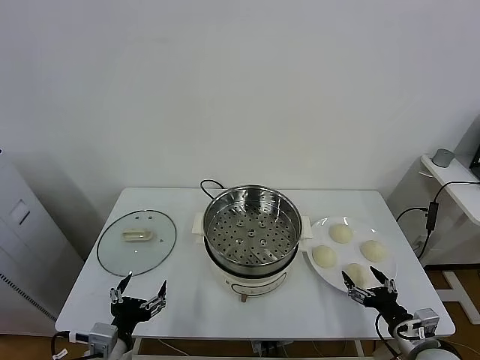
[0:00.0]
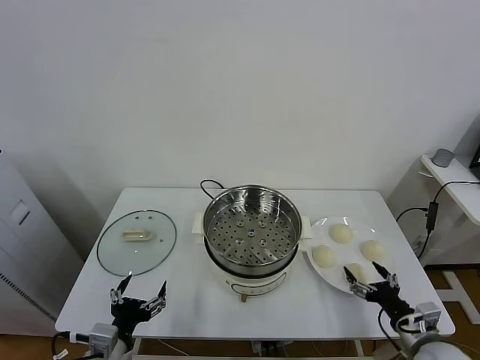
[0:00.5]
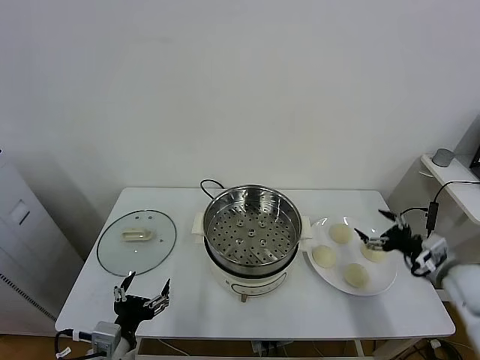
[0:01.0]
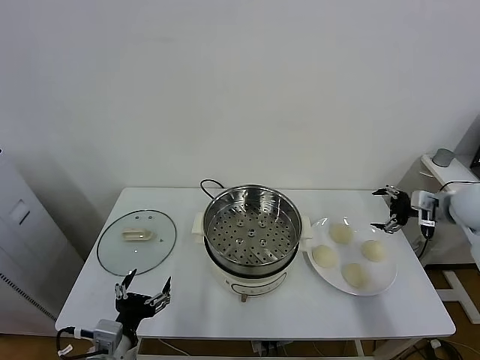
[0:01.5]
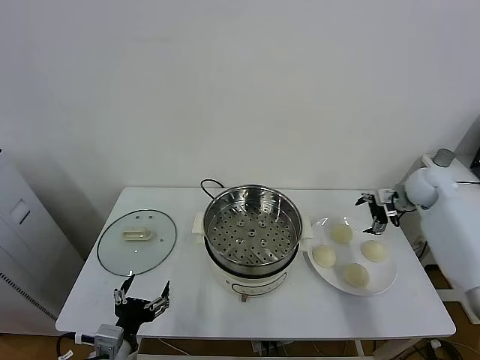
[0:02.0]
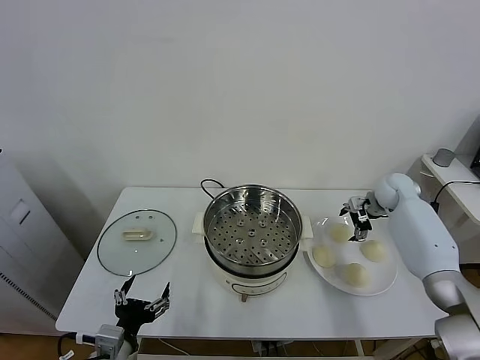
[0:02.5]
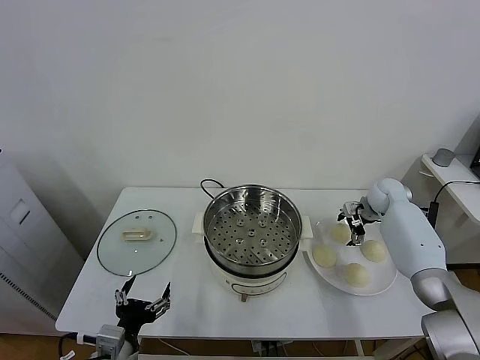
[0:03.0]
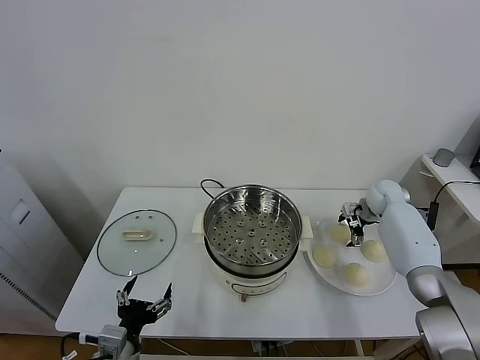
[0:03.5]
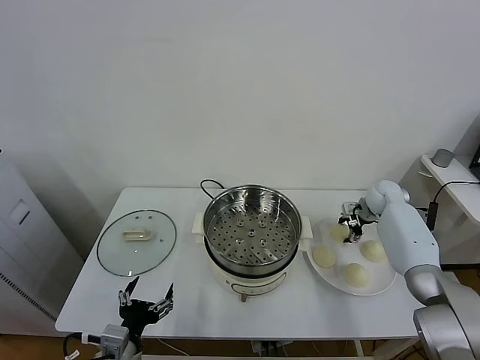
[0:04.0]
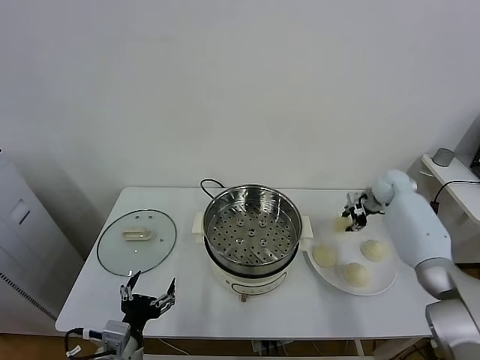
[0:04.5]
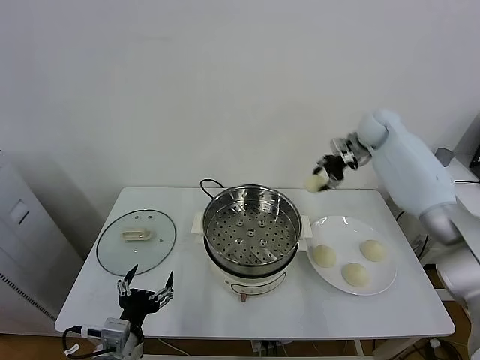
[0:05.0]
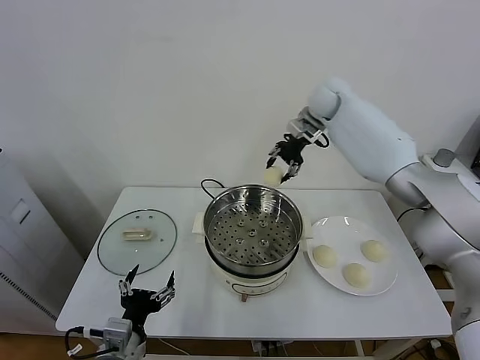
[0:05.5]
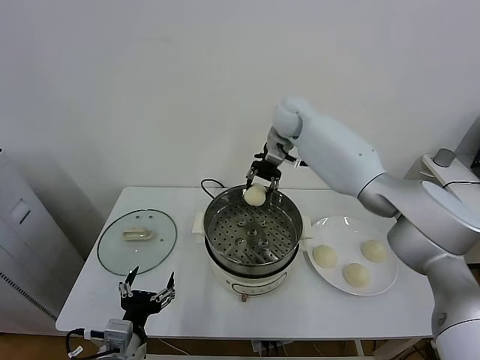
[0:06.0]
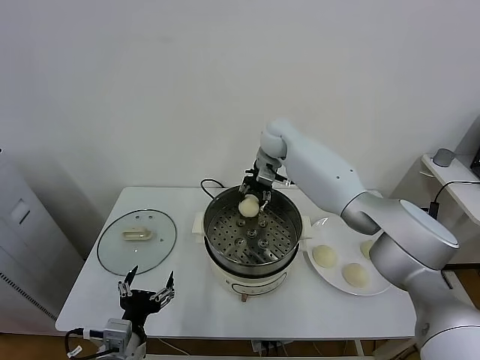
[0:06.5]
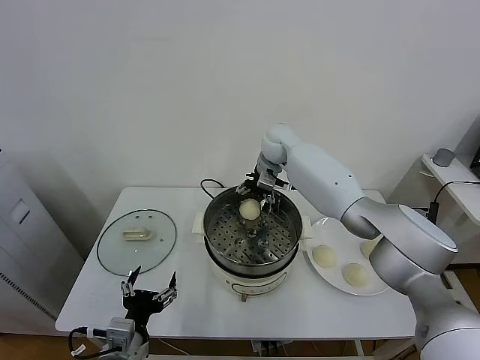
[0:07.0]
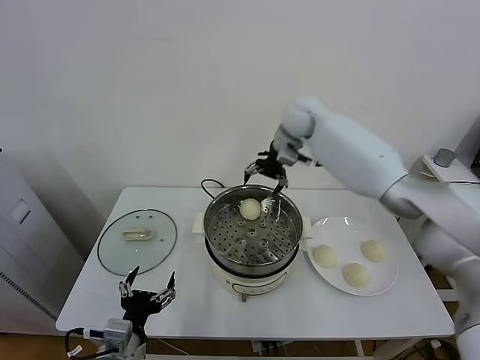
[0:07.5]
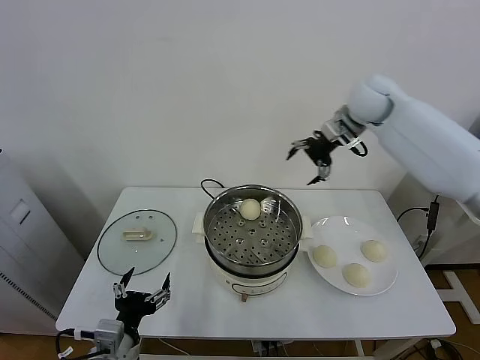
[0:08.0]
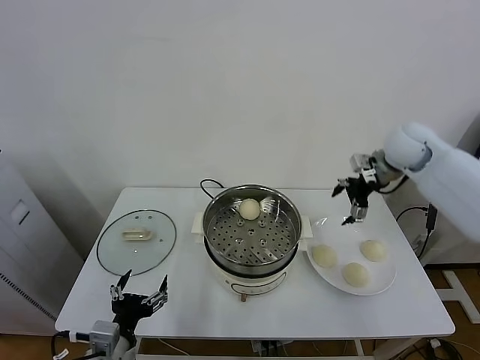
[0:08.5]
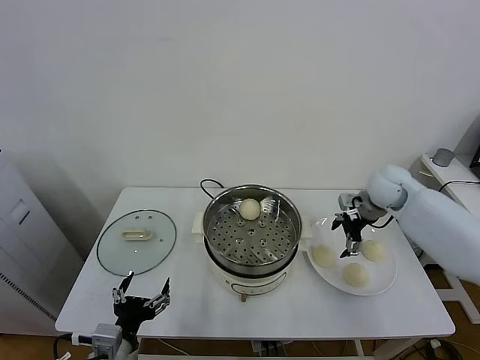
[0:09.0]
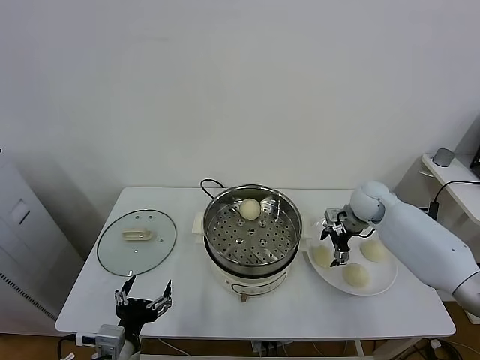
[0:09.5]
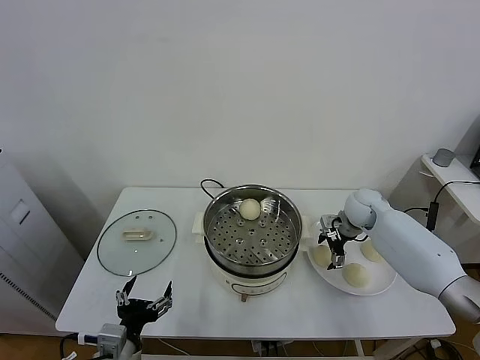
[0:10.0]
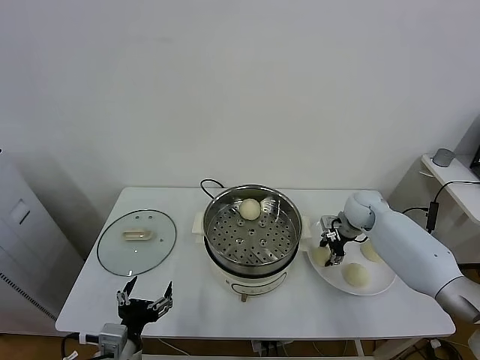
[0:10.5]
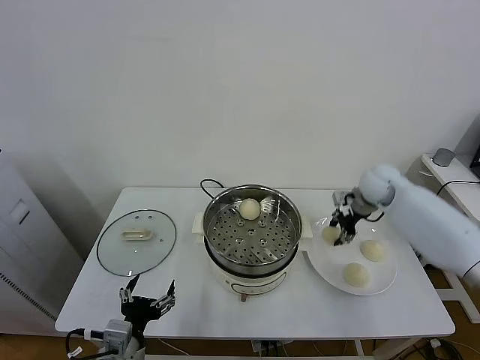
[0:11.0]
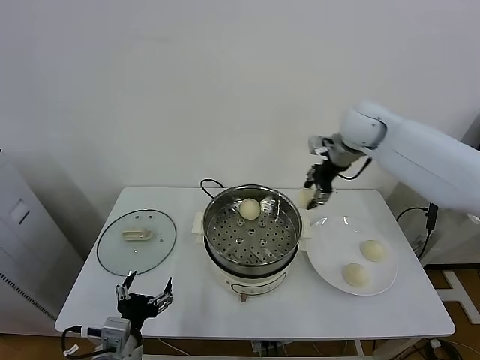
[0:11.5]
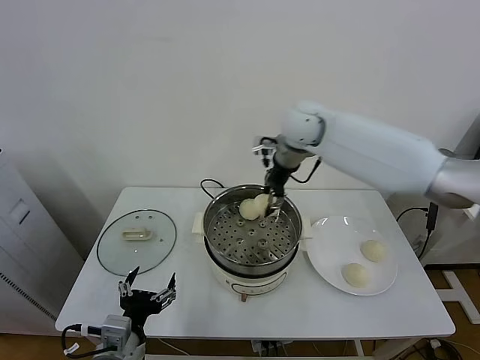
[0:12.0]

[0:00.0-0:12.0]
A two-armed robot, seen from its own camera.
Task of the whole recording: take steamed baozi put them in steamer.
Step, 0:00.0 to 0:04.0: Grasp the baozi in the plate with right gripper.
Step, 0:04.5 to 0:07.0: Place the baozi on the steamer with right gripper.
Step, 0:07.5 to 0:10.5: Grasp the baozi in the plate with right gripper.
0:02.0 to 0:04.0: The right gripper is displaced downward by about 10 cm, and closes its fingers.
0:04.0 to 0:06.0: The right gripper moves to the left and upward, approximately 35 cm.
0:06.0 to 0:08.0: The right gripper is displaced to the right and upward by approximately 20 cm, and opens.
0:08.0 to 0:10.0: The right gripper travels downward by some 30 cm.
0:10.0 to 0:12.0: The right gripper shifts roughly 30 cm upward and to the left, and closes up.

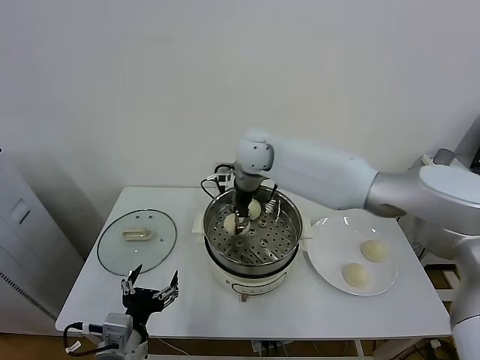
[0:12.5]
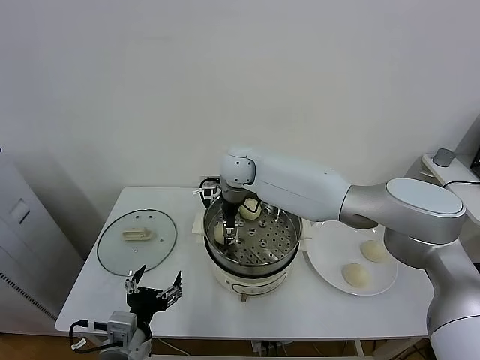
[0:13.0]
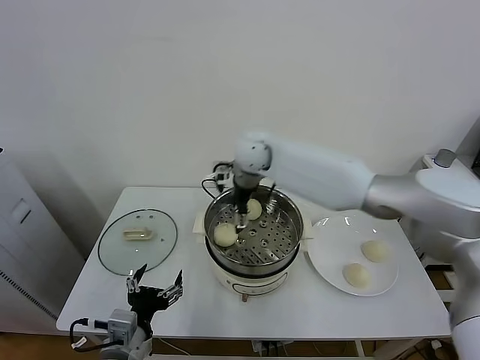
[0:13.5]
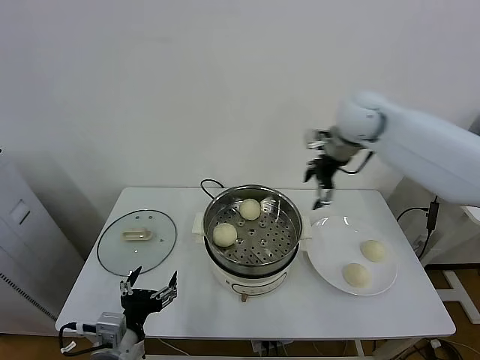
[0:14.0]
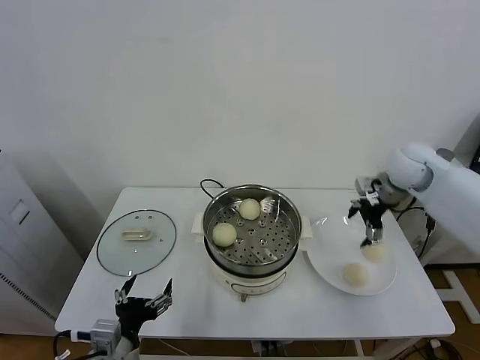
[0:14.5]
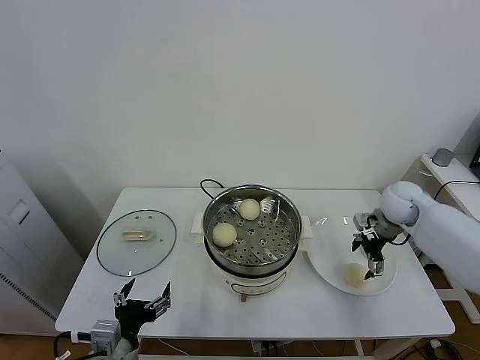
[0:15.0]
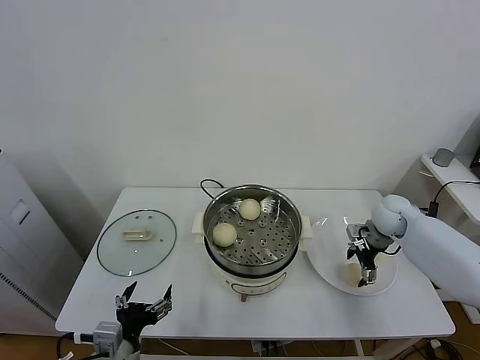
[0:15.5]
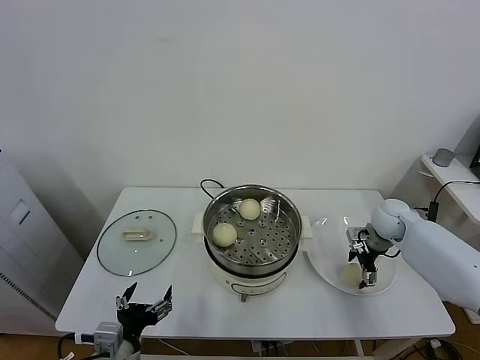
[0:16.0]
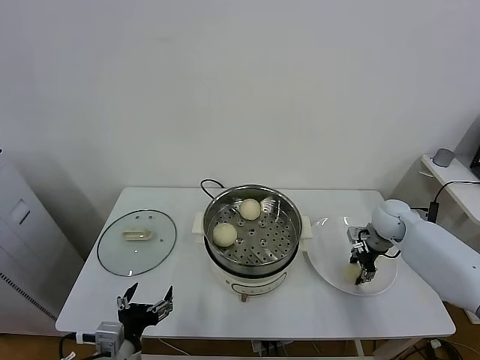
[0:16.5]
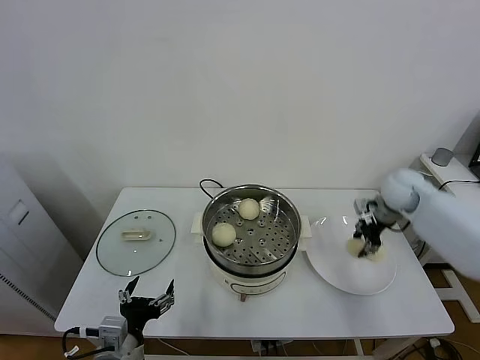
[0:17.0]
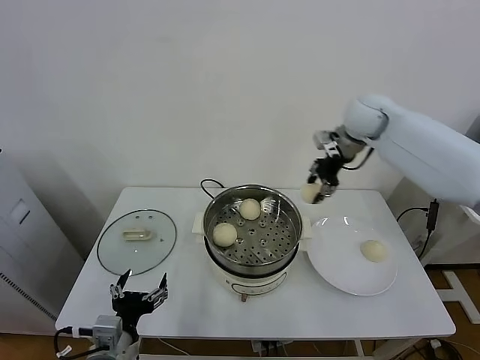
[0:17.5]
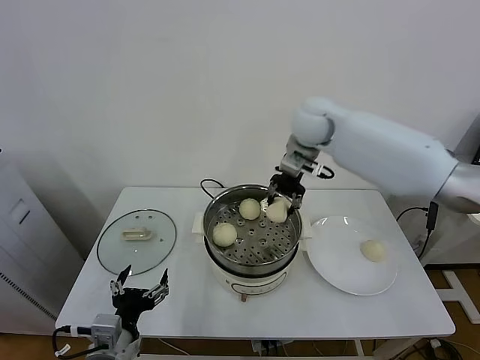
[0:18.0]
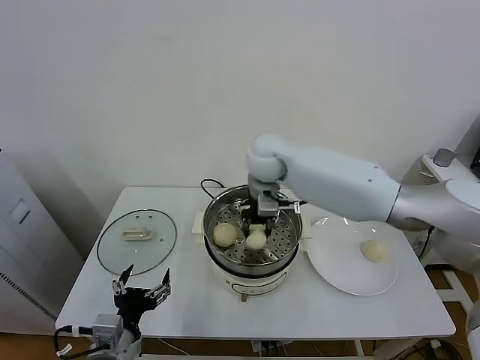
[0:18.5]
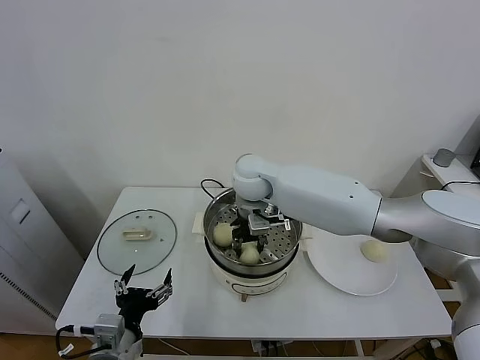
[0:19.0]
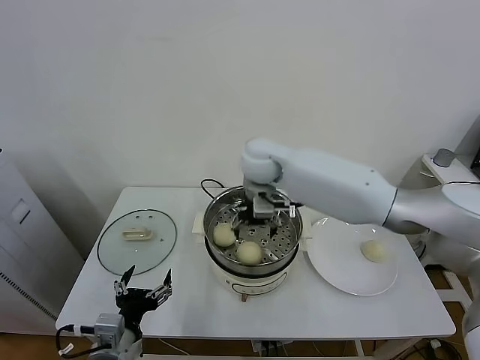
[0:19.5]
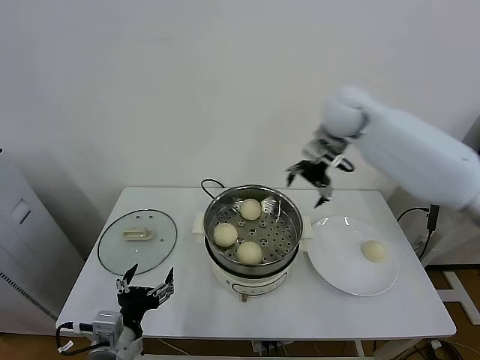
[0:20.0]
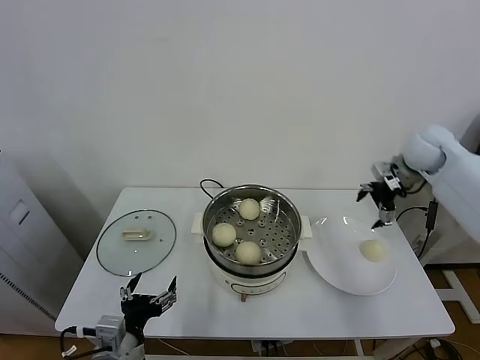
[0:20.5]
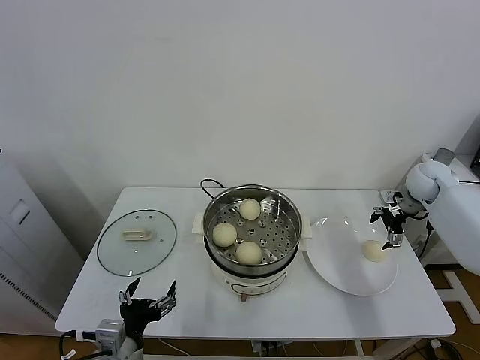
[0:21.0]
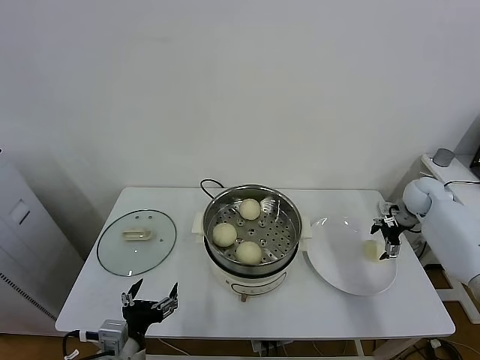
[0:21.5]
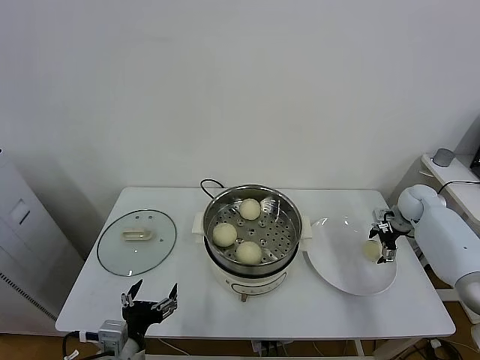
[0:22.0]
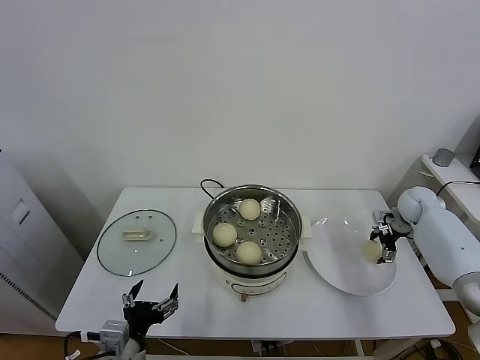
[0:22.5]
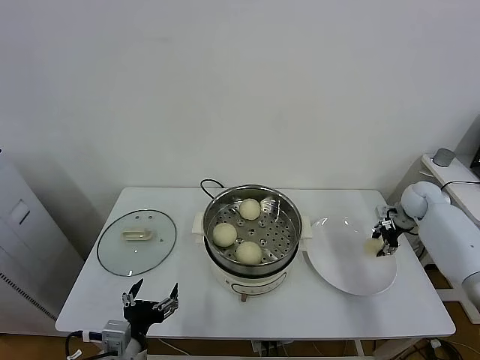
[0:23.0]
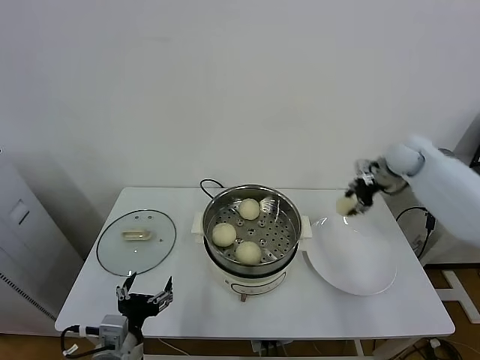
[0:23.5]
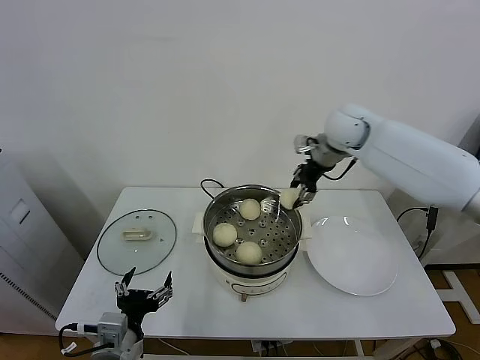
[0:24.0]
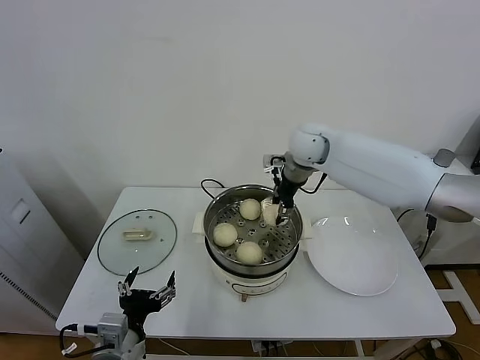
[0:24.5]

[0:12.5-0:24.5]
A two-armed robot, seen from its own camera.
Task of the whole recording: take steamed baozi put them in steamer.
Step, 0:13.5 to 0:16.5: Grasp the baozi in the plate with right gripper.
Step, 0:17.0 to 0:19.0: Place the baozi on the steamer with right gripper.
Step, 0:19.5 to 0:22.5: Grasp the baozi in the plate with right gripper.
0:12.5 to 0:14.5: The right gripper moves to the right, about 35 cm, and opens up.
0:14.5 to 0:16.5: The right gripper heads downward, covering about 15 cm, and closes.
0:16.5 to 0:18.5: The right gripper goes about 40 cm to the left and upward.
0:18.5 to 0:20.5: The right gripper moves to the right, roughly 35 cm, and opens up.
0:20.5 to 0:22.5: The right gripper moves downward, about 20 cm.
0:22.5 to 0:24.5: The right gripper moves to the left and upward, some 40 cm, and closes its fingers.

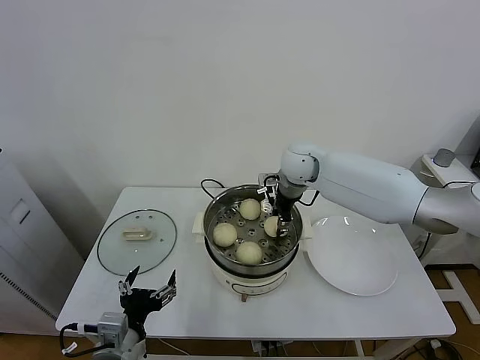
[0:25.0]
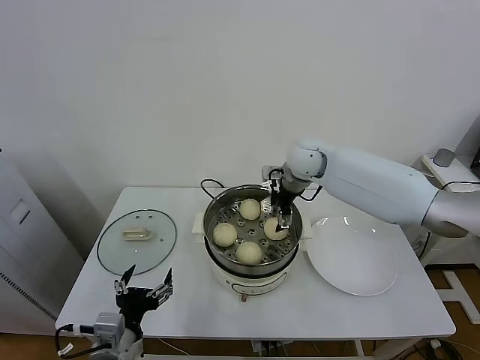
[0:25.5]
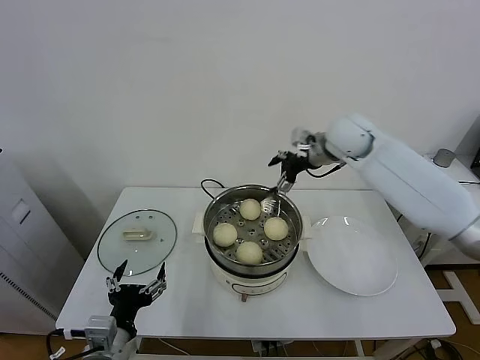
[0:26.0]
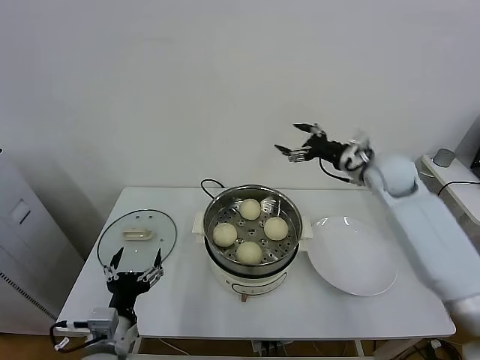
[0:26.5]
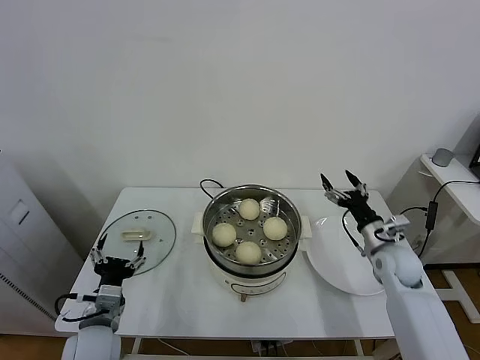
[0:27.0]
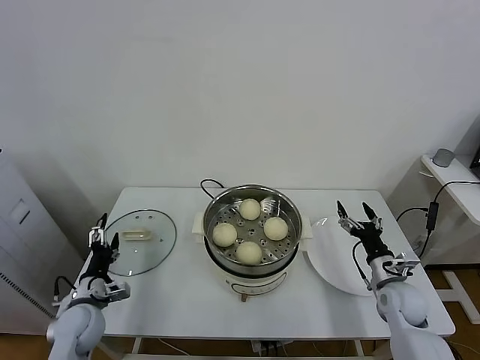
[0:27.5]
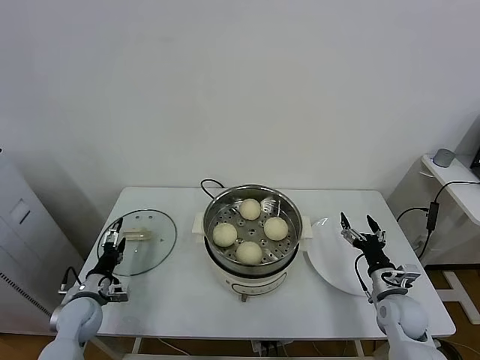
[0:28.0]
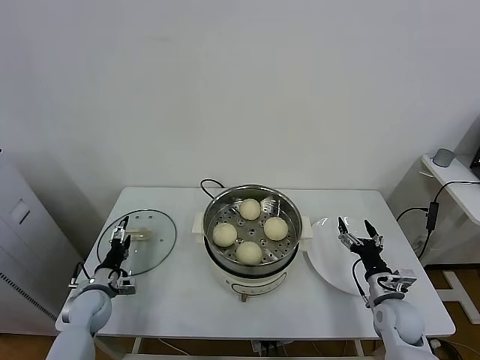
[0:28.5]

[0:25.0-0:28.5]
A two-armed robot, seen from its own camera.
Task of the whole recording: take steamed baozi put them in steamer.
0:25.0 to 0:27.0: The left gripper goes some 5 cm forward. The right gripper travels to the right, downward and backward by roughly 35 cm, and opens its fingers.
0:27.0 to 0:28.5: The right gripper heads backward and downward, covering some 15 cm. Meanwhile the left gripper is displaced forward, downward and to the left by about 20 cm.
